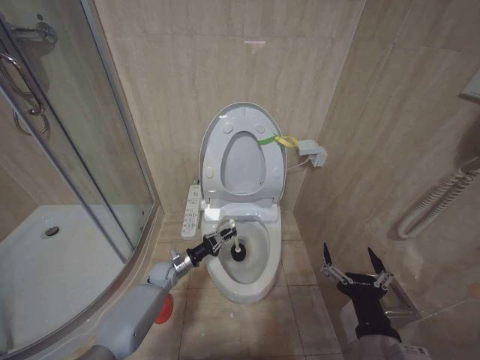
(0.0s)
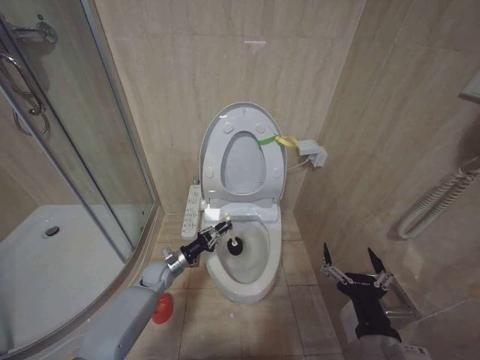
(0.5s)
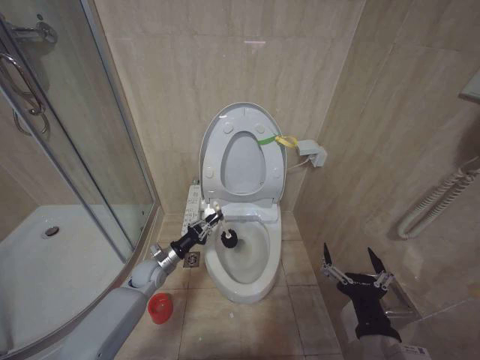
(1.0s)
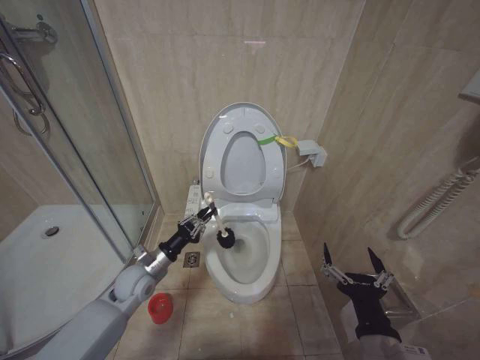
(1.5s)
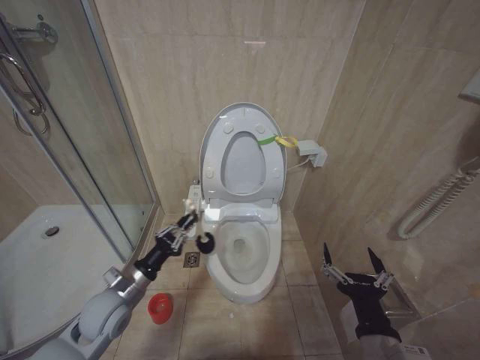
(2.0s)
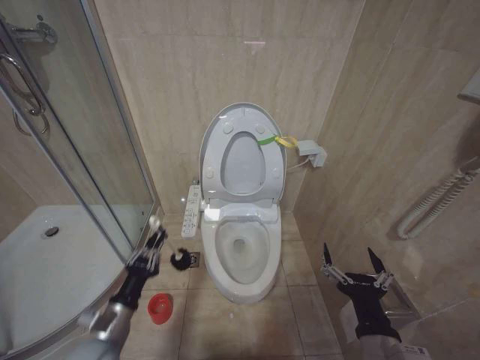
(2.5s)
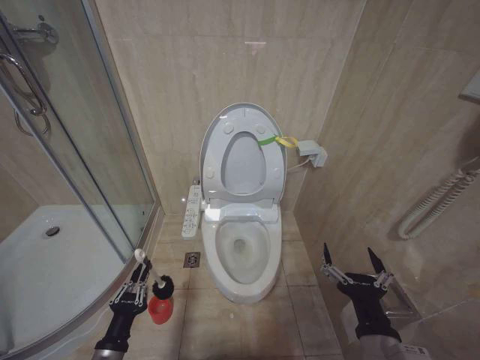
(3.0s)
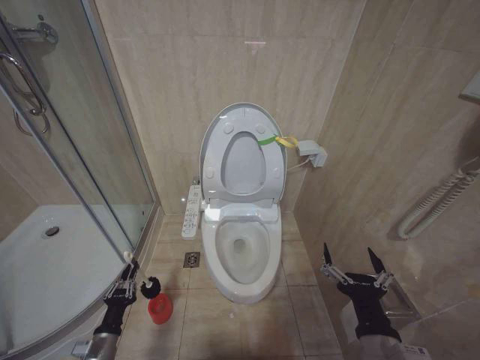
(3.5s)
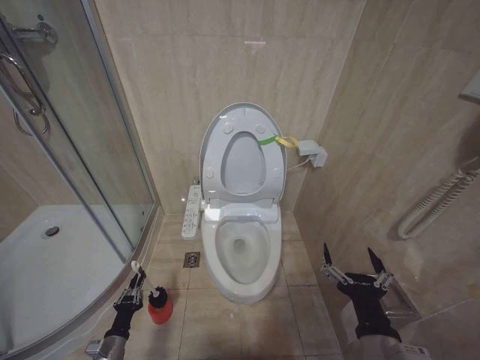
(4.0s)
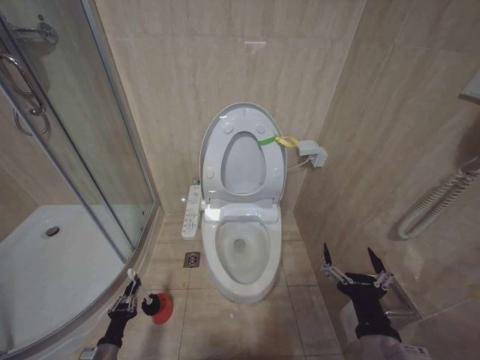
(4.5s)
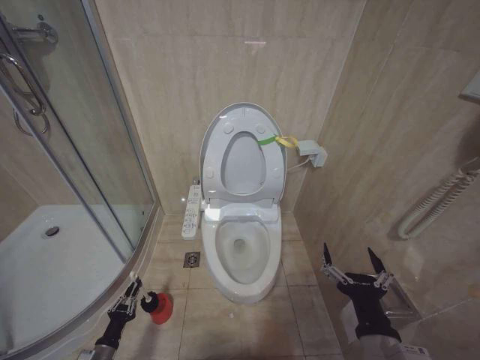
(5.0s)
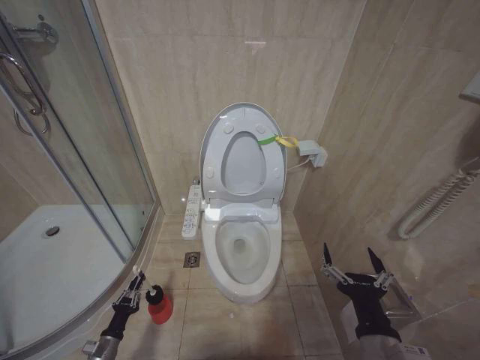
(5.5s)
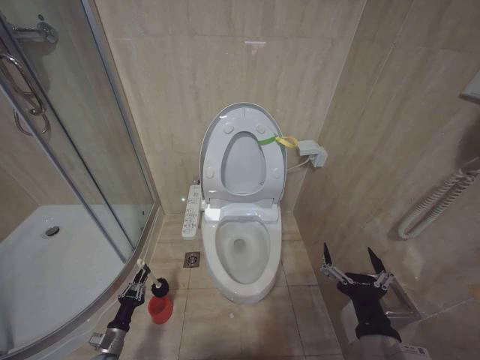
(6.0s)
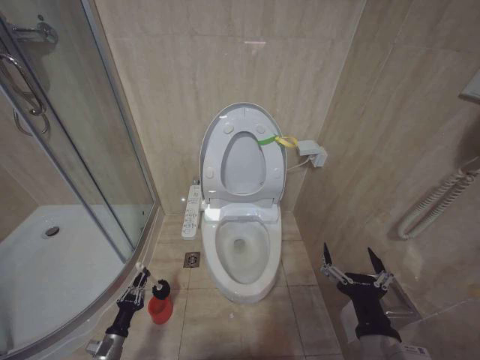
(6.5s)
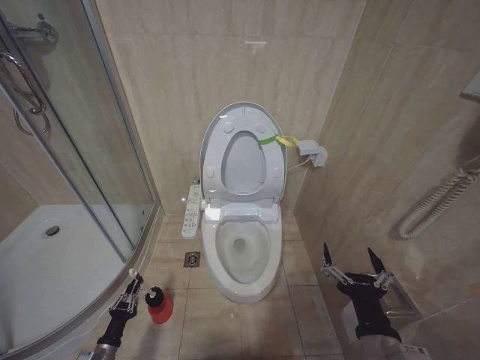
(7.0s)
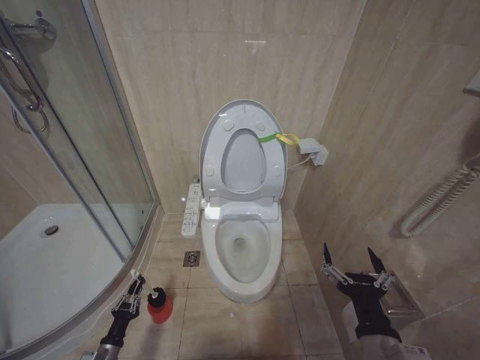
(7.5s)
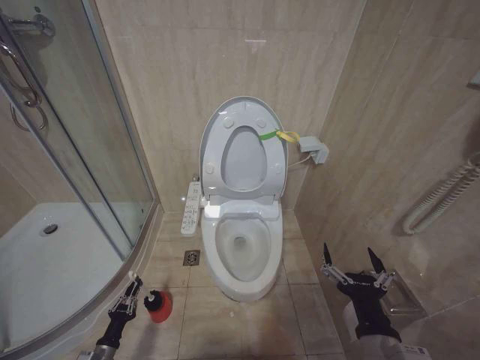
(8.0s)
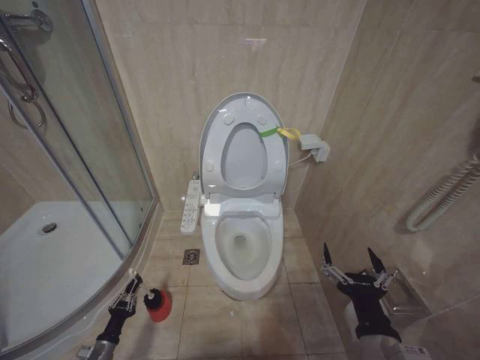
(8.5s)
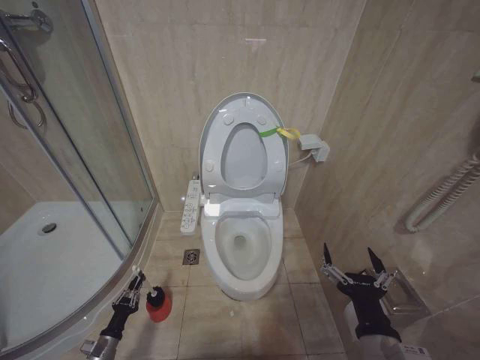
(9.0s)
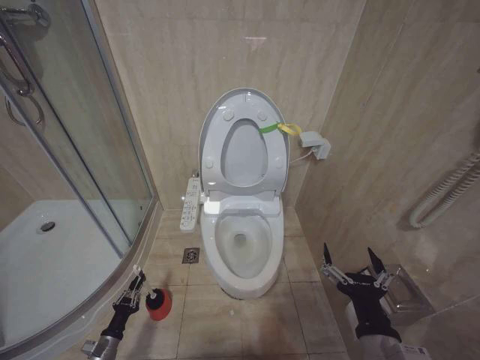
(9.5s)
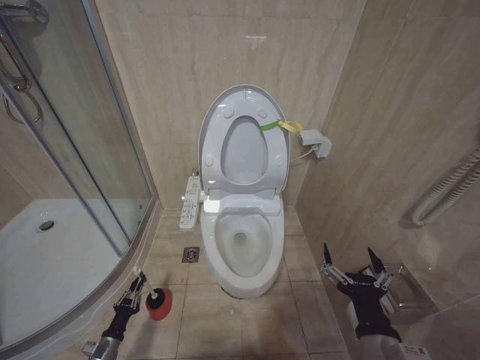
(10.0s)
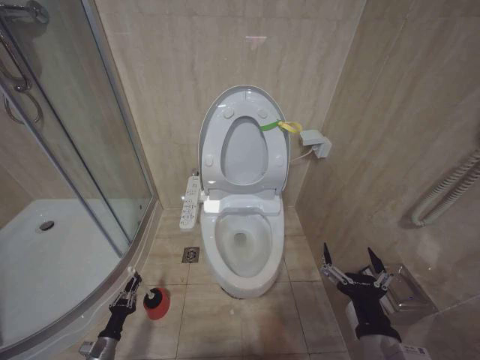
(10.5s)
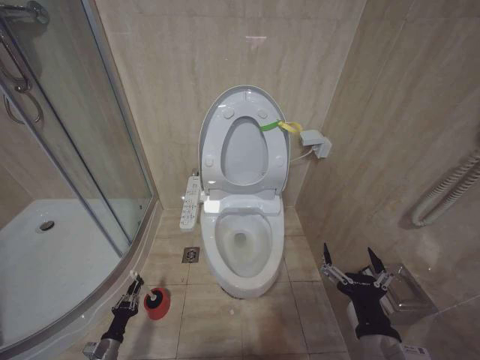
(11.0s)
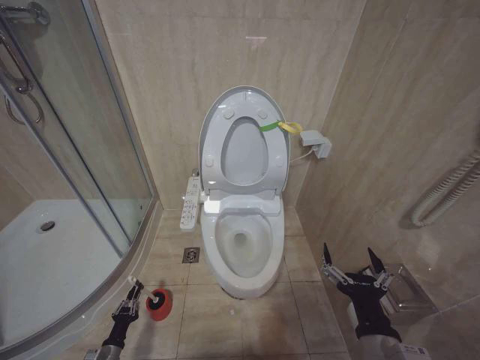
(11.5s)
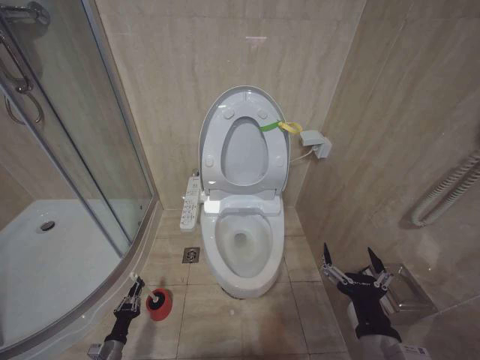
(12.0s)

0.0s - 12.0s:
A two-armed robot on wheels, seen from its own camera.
Task of the whole recording: Open the toilet lid, clean the toilet bowl with a toilet brush, close the toilet lid, and flush.
0.0s - 2.0s: The left gripper shifts approximately 25 cm upward and backward.
2.0s - 4.0s: The left gripper shifts roughly 25 cm downward and backward.
4.0s - 6.0s: The left gripper moves downward, roughly 5 cm.
6.0s - 10.0s: The grippers make only small movements.

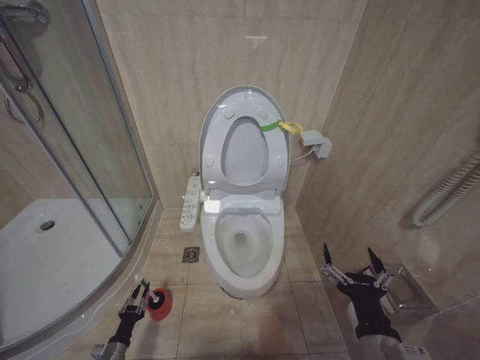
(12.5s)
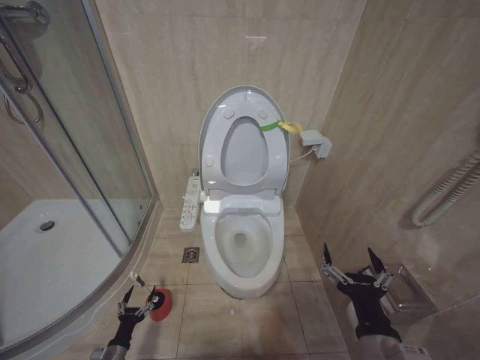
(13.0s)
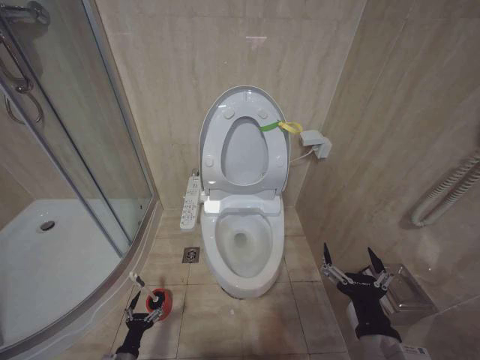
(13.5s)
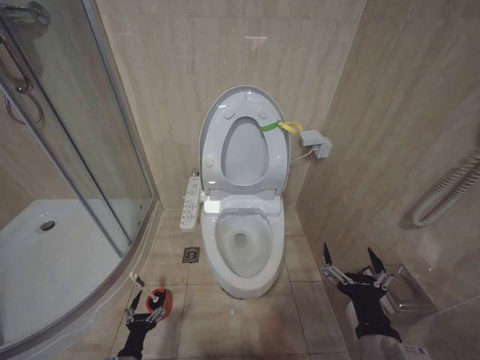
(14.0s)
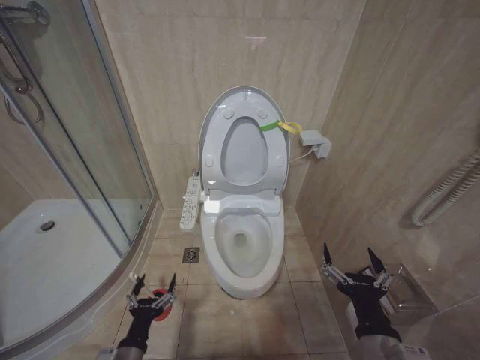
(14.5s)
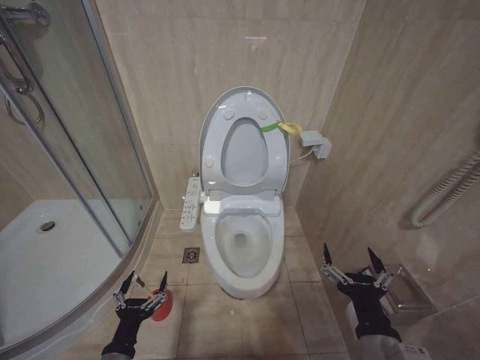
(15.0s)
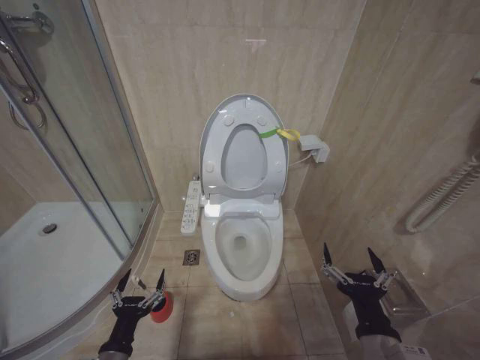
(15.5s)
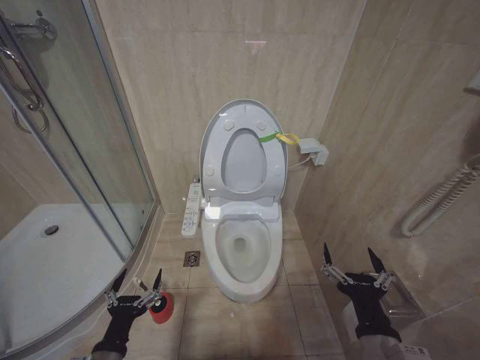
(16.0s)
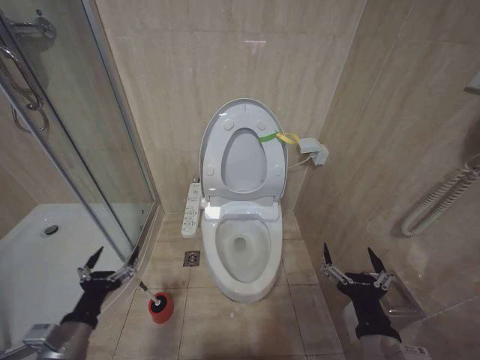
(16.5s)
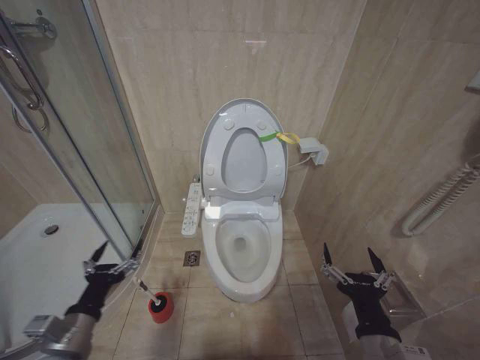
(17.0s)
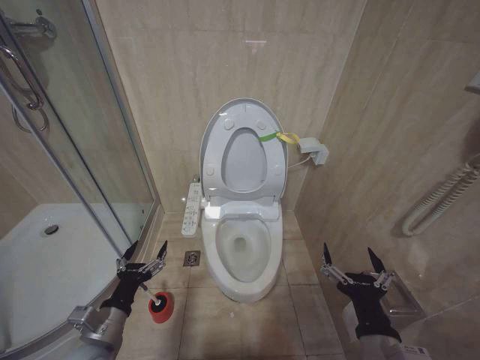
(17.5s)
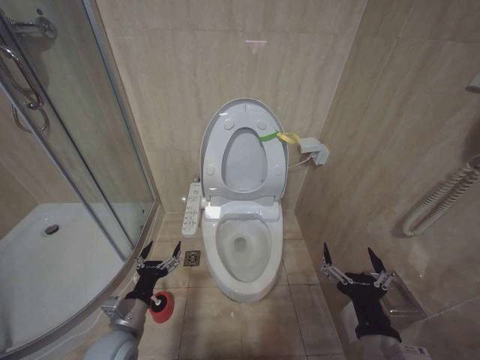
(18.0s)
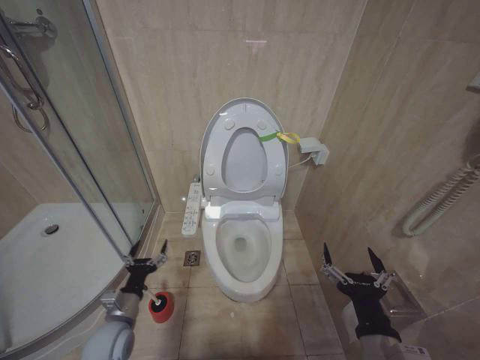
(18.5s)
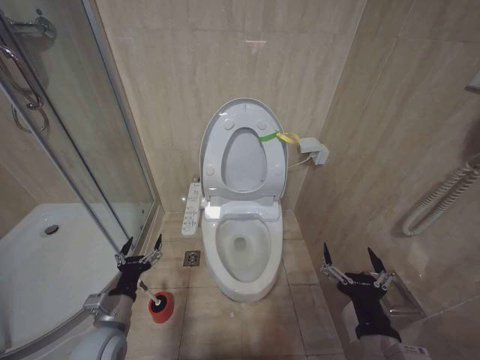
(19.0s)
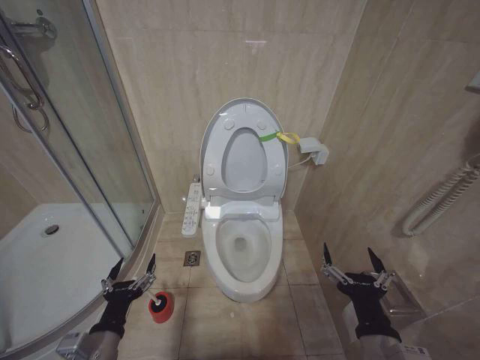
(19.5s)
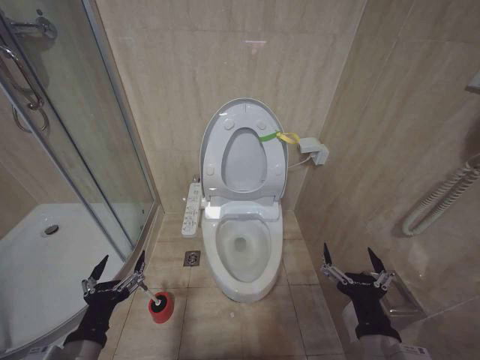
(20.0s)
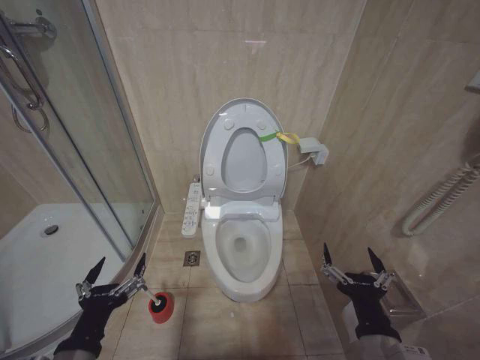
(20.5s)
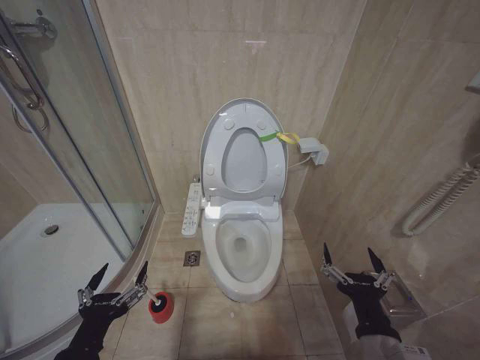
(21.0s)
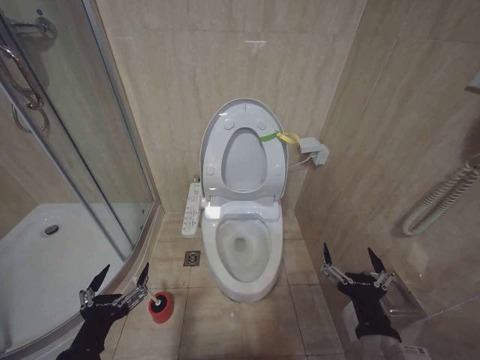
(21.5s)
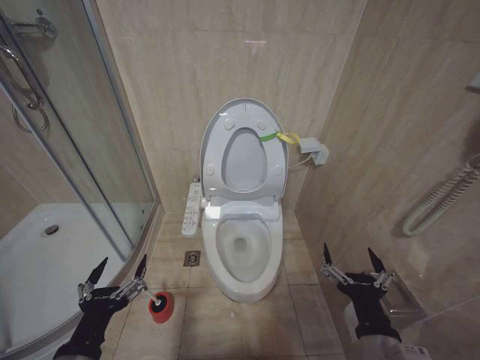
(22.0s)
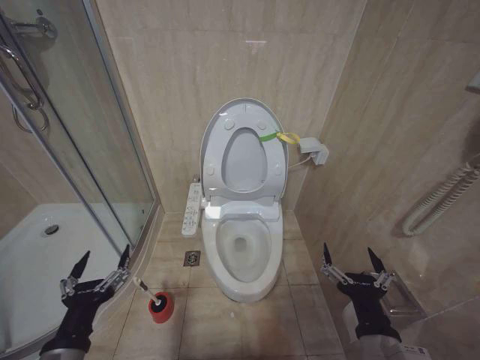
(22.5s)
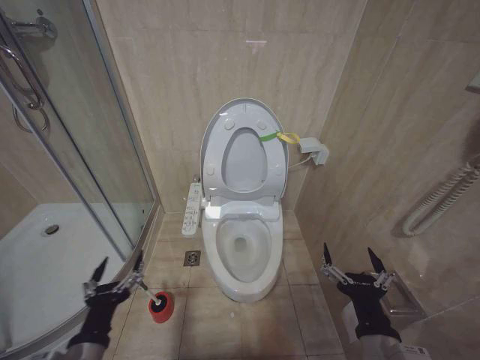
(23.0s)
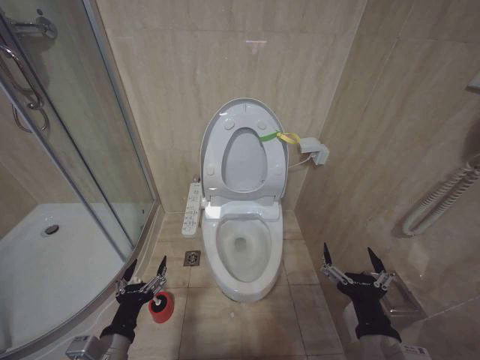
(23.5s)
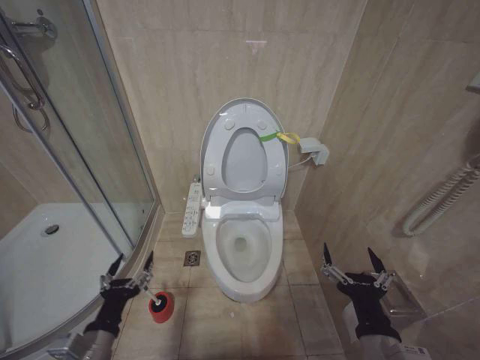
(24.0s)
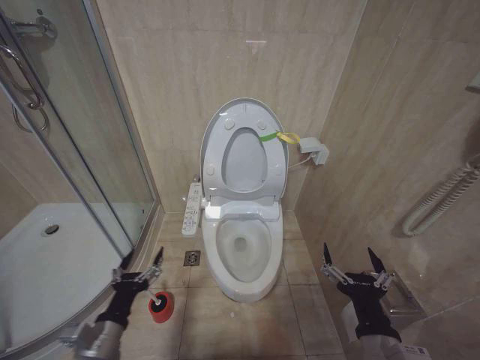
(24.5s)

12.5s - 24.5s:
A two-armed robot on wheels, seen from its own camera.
Task of the whole recording: Open the toilet lid, clean the toilet bowl with a toilet brush, close the toilet lid, and flush.
12.5s - 14.5s: The left gripper is displaced upward and to the right by some 25 cm, and opens.
14.5s - 16.5s: The left gripper shifts some 15 cm upward and to the left.
16.5s - 18.5s: The left gripper goes roughly 10 cm forward and downward.
18.5s - 20.5s: The left gripper shifts about 20 cm backward and upward.
20.5s - 22.5s: There are only small adjustments of the grippers.
22.5s - 24.5s: The left gripper travels forward by approximately 5 cm.

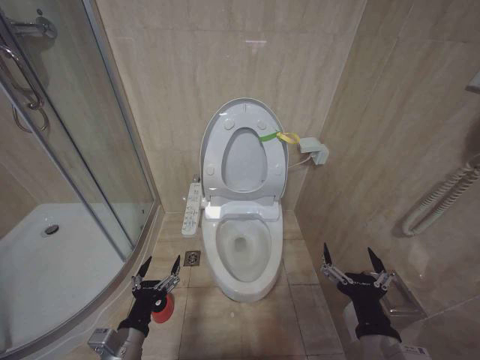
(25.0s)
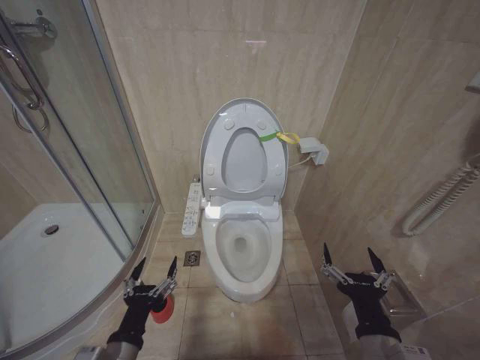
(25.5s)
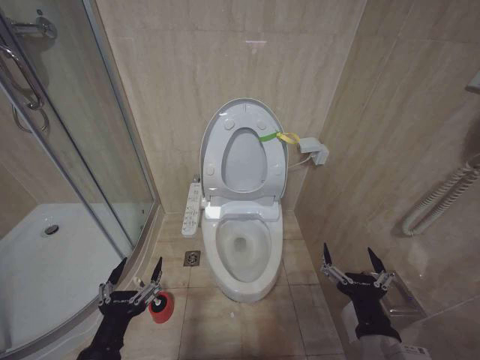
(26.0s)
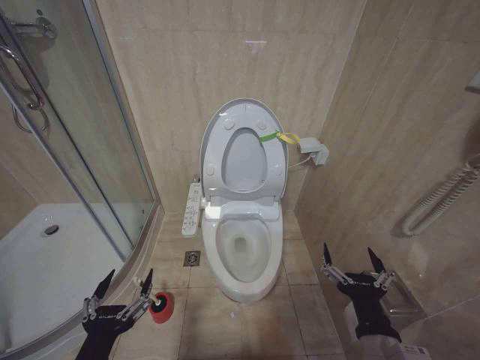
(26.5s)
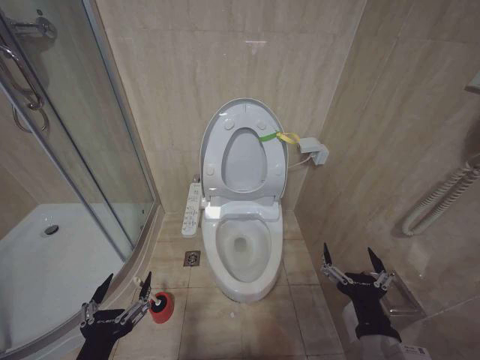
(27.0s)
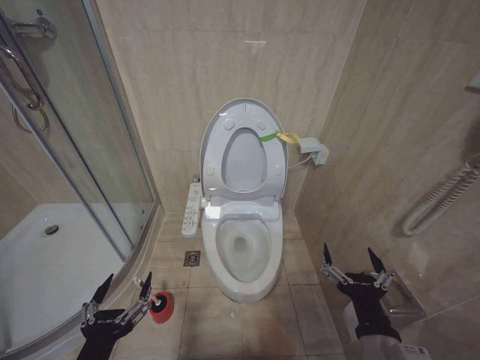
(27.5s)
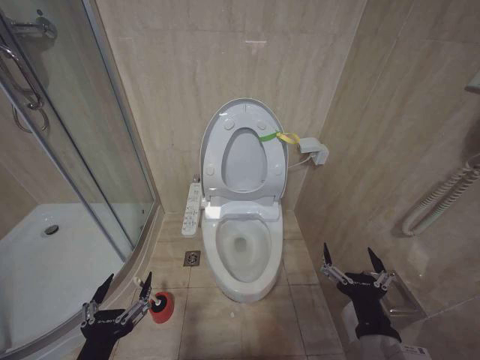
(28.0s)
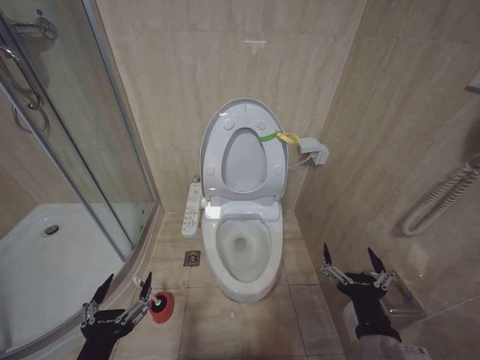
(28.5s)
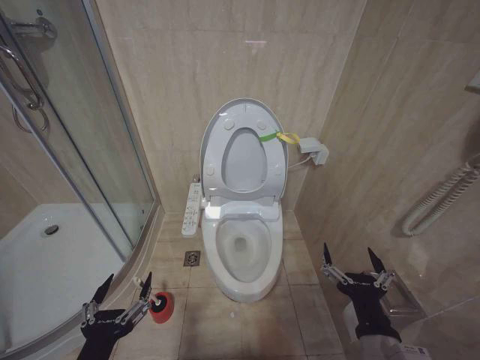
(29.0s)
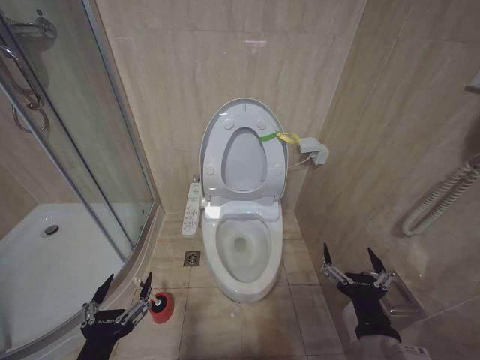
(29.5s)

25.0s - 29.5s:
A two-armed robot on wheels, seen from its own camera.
Task of the whole recording: Open the toilet lid, clean the toilet bowl with a toilet brush, close the toilet lid, and flush.
25.0s - 27.0s: The left gripper moves backward and upward, approximately 15 cm.
27.0s - 29.5s: Neither gripper changes place.
